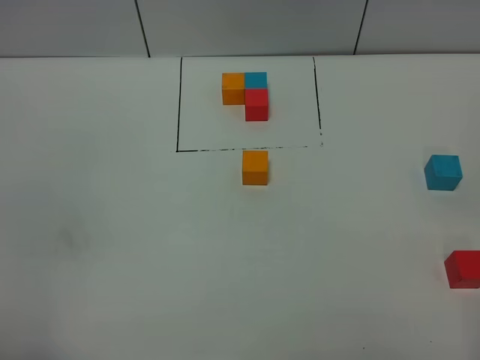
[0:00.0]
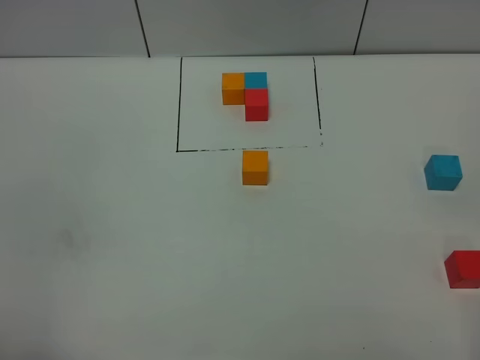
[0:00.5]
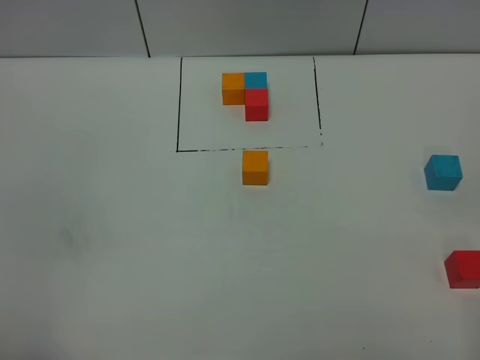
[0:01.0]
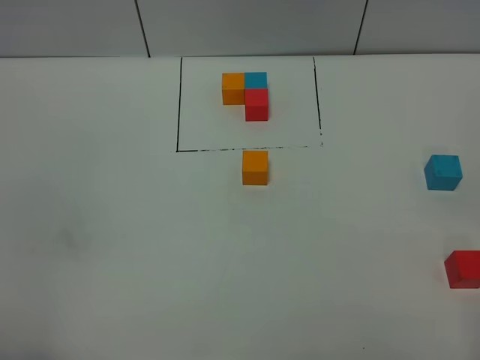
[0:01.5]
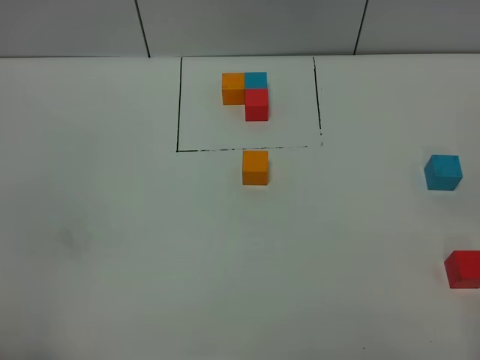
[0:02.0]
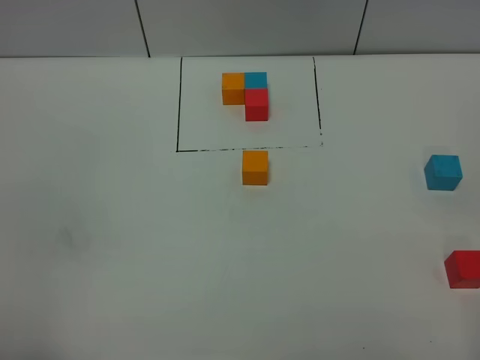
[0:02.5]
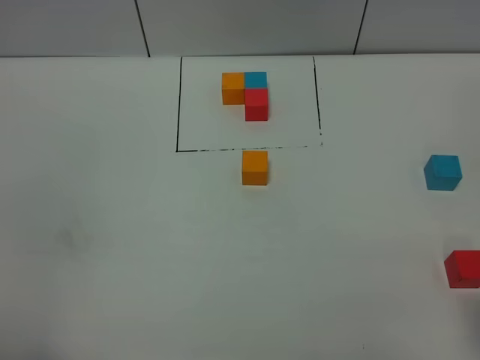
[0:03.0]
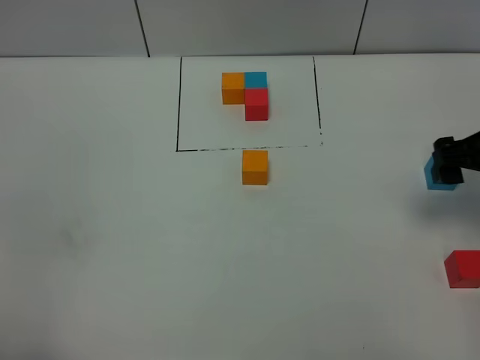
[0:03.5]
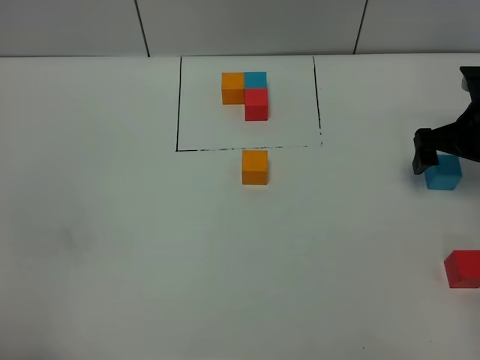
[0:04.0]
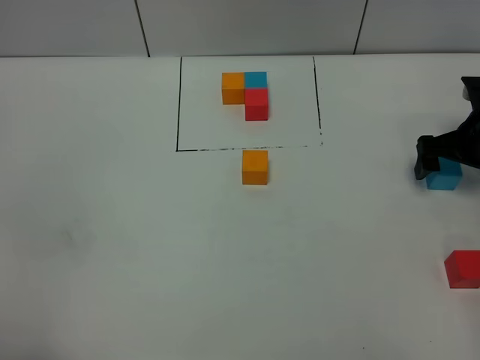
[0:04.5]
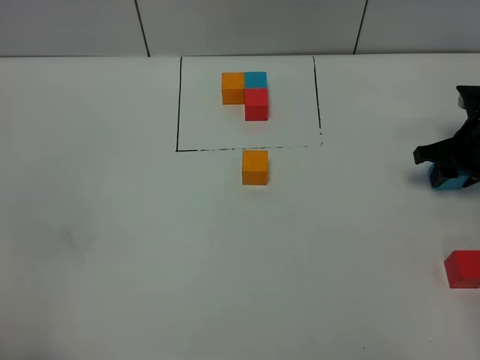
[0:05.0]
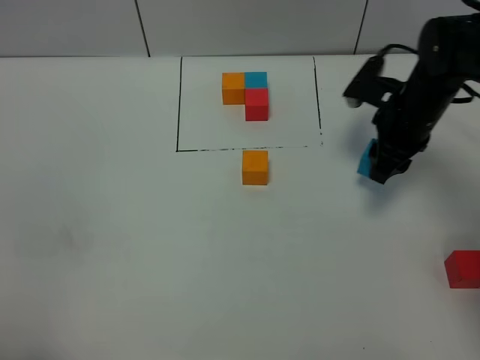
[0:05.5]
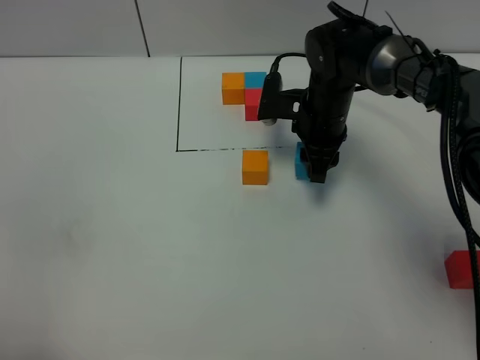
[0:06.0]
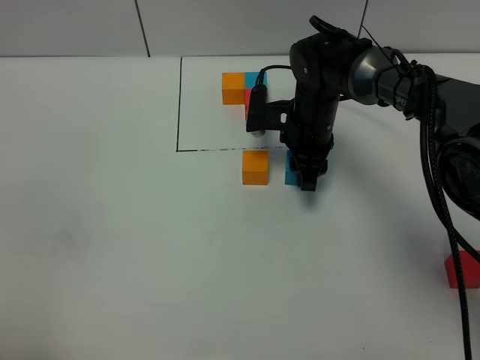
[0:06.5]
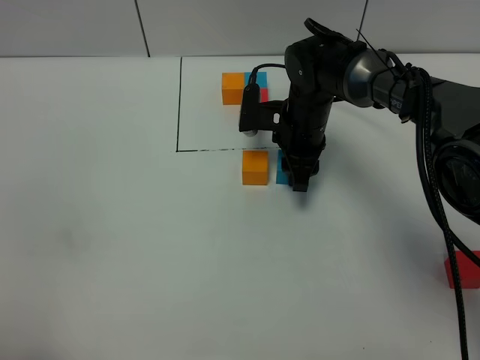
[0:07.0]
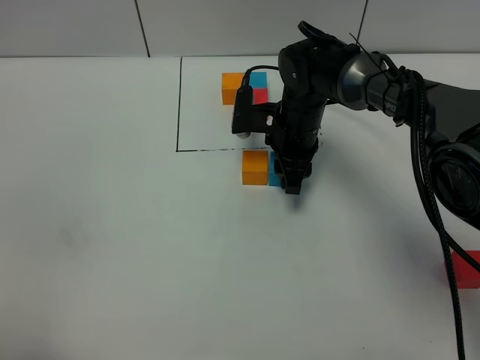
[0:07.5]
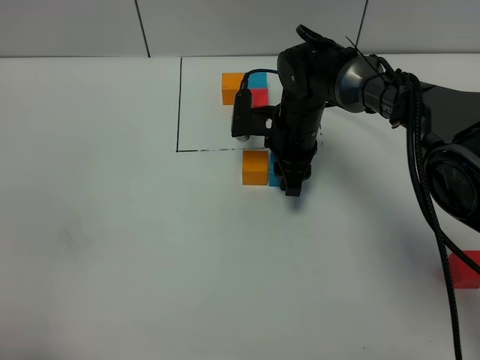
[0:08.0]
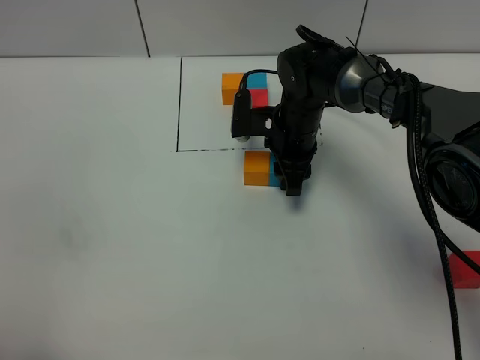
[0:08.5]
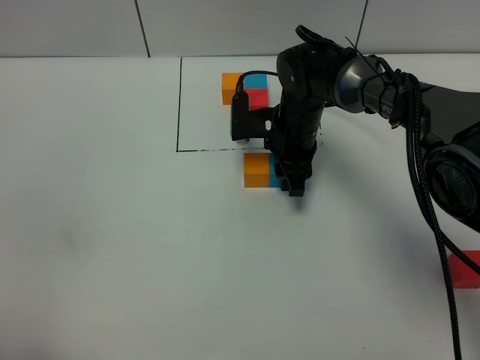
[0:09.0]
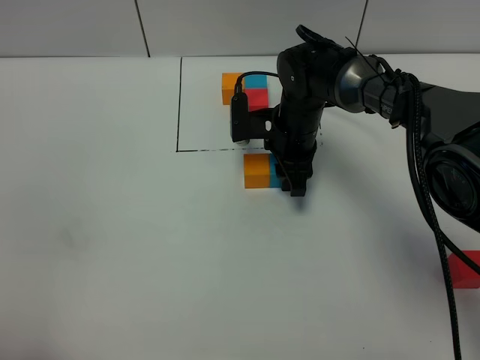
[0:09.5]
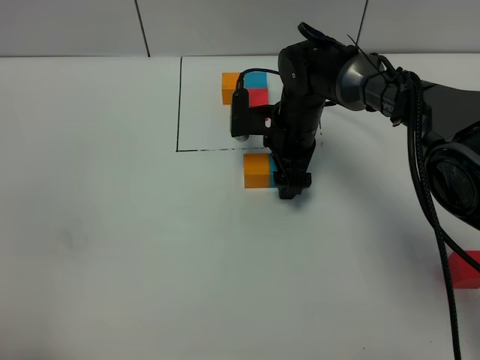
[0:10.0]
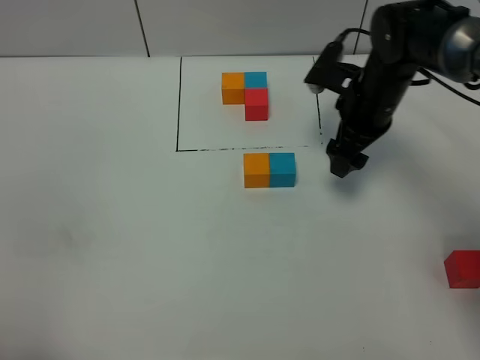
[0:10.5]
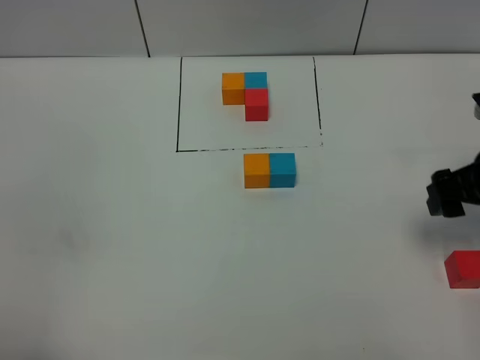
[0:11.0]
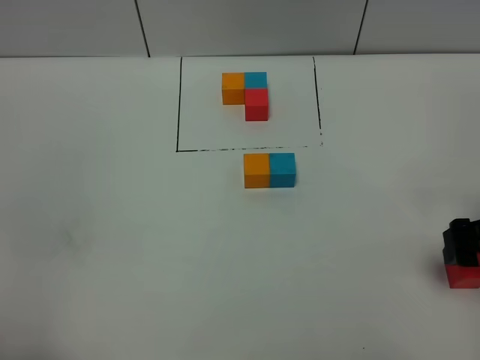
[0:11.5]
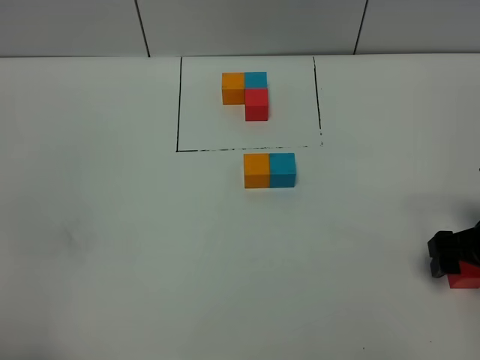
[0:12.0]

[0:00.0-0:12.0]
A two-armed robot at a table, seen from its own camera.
Task of the whole recording: According to the building block template in front, assemble the scattered blocks together.
Step, 0:00.0 to 0:10.0: Put the blue build block on the right of the orange build block.
0:00.0 to 0:02.0: Neither gripper changes place.
0:02.0 to 0:04.0: The right gripper heads forward, covering some 35 cm.
0:04.0 to 0:06.0: The right gripper moves to the left, roughly 20 cm, and closes its fingers.
0:06.0 to 0:08.0: The grippers make only small movements.
0:08.0 to 0:10.0: The right gripper opens.
0:10.0 to 0:12.0: The right gripper travels to the right and backward by some 30 cm.

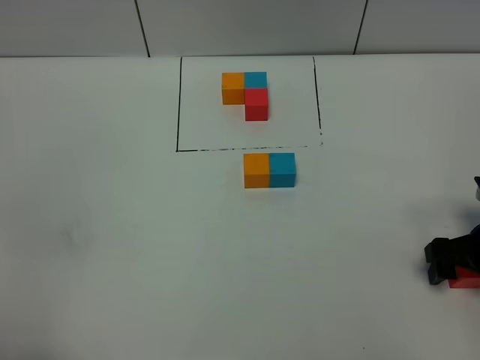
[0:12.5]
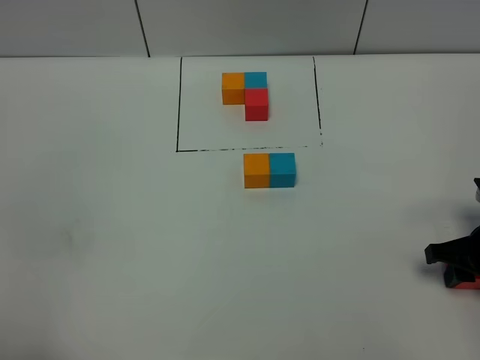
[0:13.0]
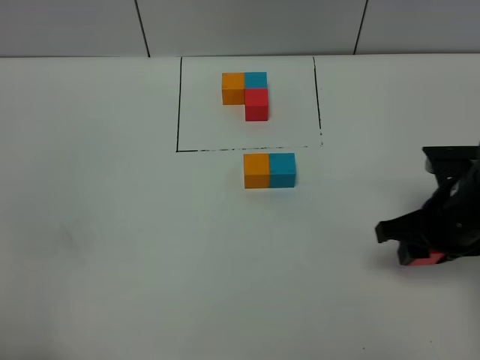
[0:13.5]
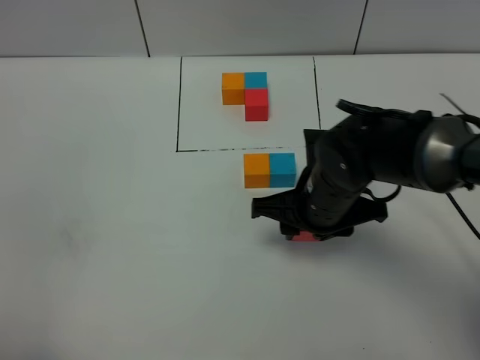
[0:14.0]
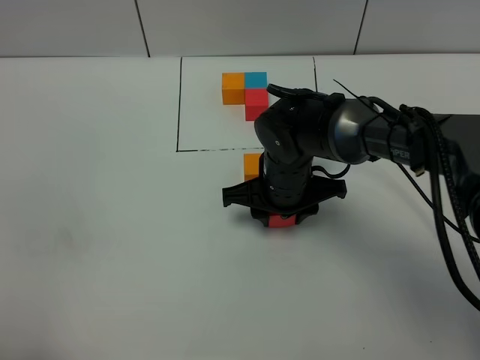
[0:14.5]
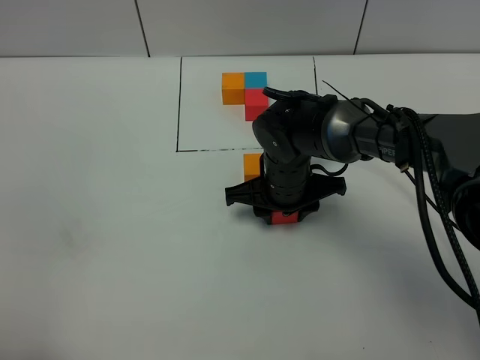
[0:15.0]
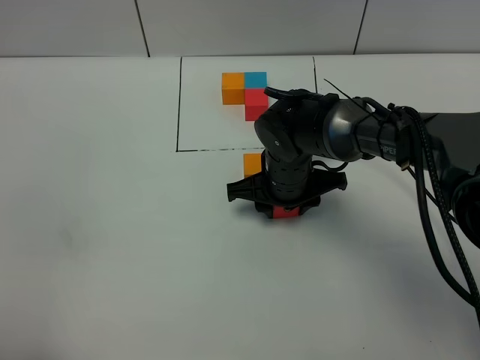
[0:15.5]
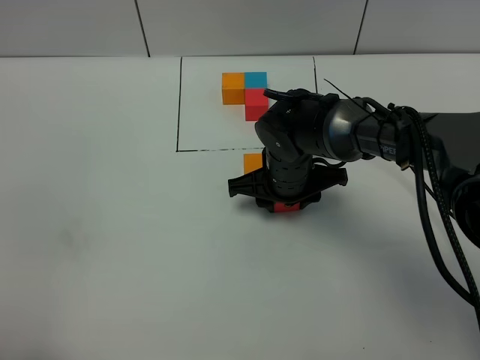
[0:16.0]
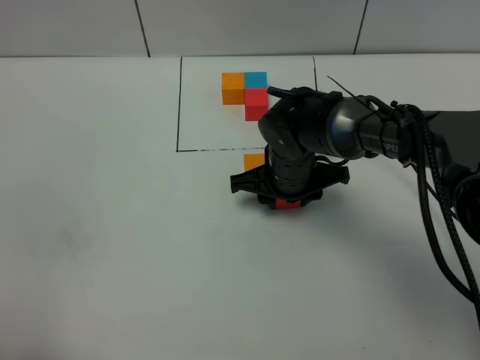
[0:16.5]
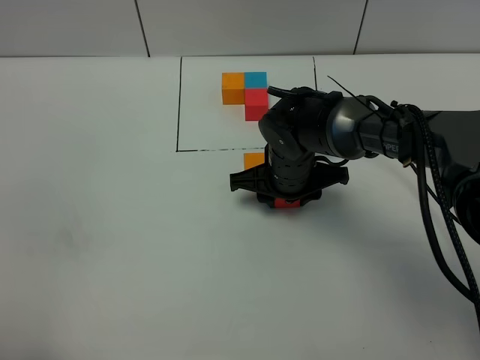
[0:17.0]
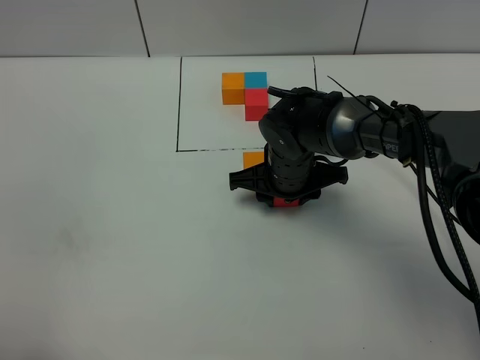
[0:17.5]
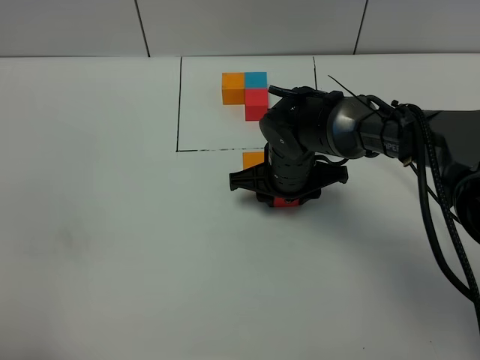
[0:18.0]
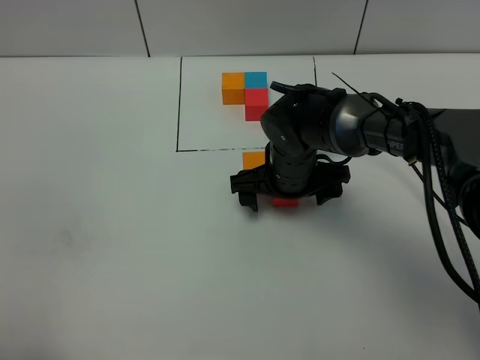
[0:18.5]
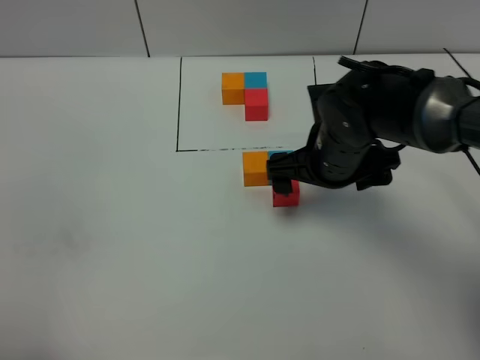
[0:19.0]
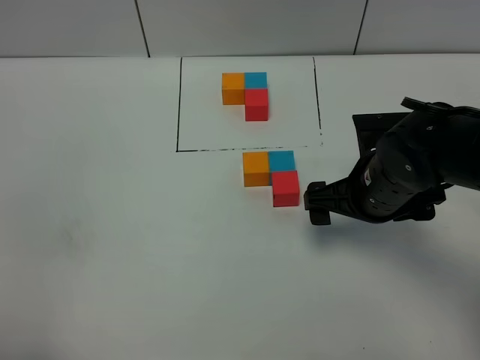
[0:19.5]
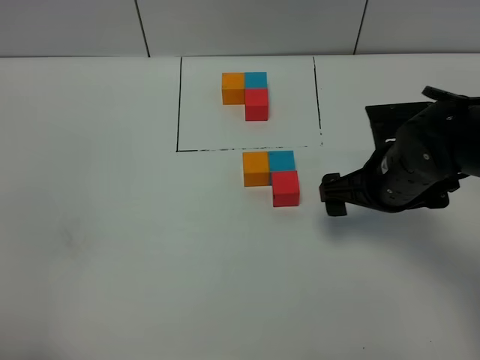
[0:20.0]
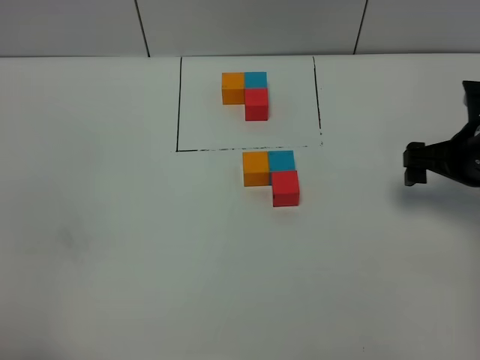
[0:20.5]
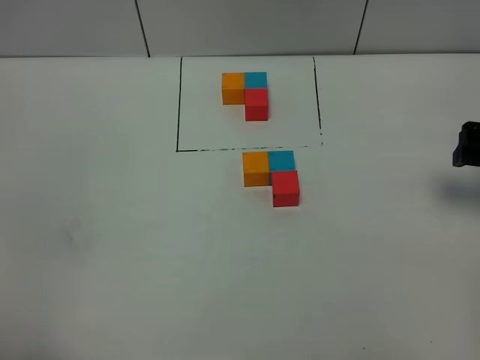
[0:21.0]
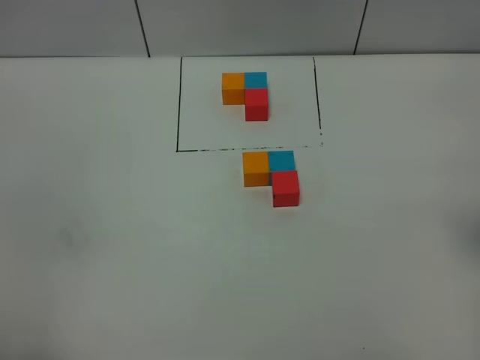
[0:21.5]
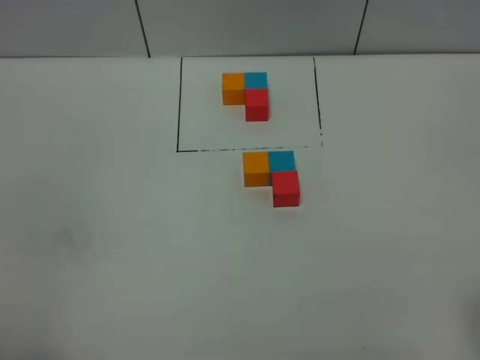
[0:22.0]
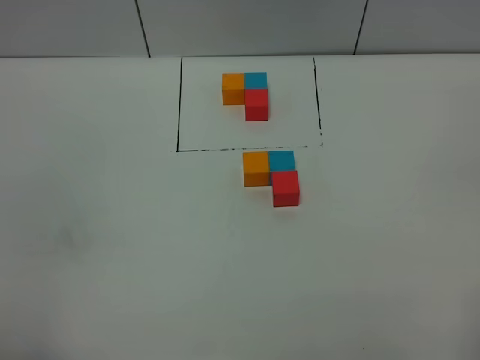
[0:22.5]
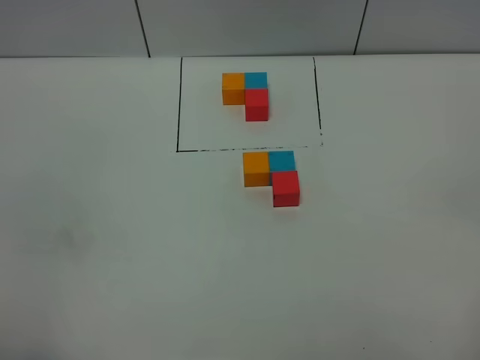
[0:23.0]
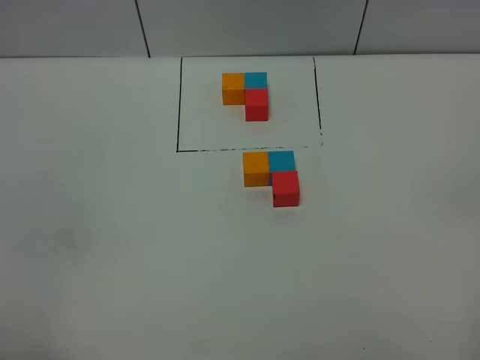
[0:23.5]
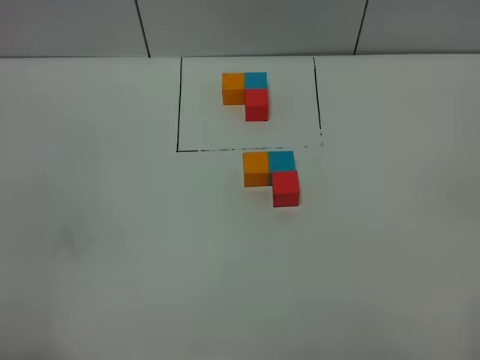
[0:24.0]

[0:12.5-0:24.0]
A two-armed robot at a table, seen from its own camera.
Task of the whole recording: According to the building block template in front, assemble the scattered blocks together.
Step, 0:12.5 to 0:18.0: Put the red build block on the behind of the blue build block.
0:12.5 to 0:14.5: The right gripper heads to the left, covering about 25 cm, and closes its fingers.
0:14.5 to 0:16.5: There are only small adjustments of the grippers.
0:16.5 to 0:18.5: The right gripper opens up.
0:18.5 to 0:20.0: The right gripper shifts approximately 15 cm to the right and backward.
0:20.0 to 0:22.0: The right gripper moves backward, upward and to the right, some 30 cm.
